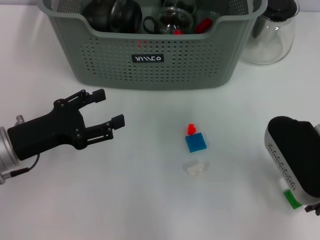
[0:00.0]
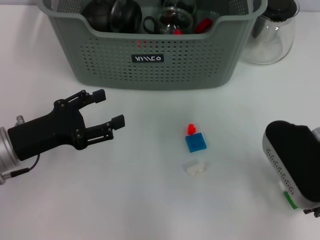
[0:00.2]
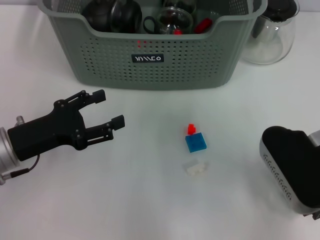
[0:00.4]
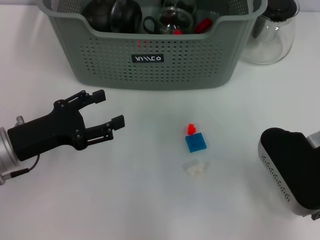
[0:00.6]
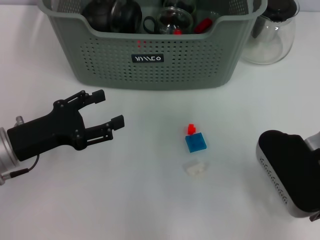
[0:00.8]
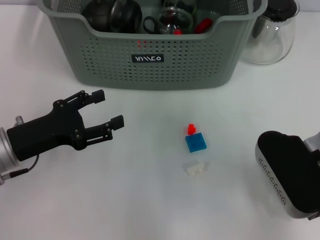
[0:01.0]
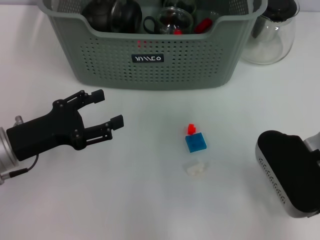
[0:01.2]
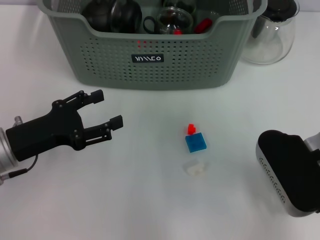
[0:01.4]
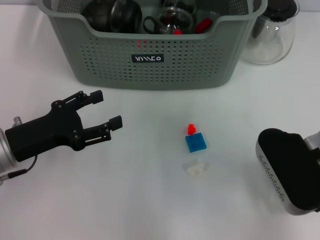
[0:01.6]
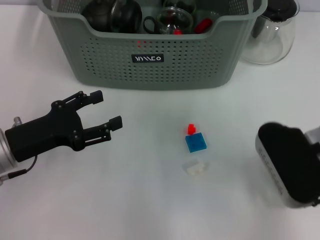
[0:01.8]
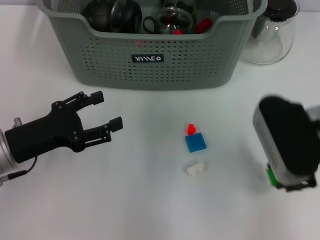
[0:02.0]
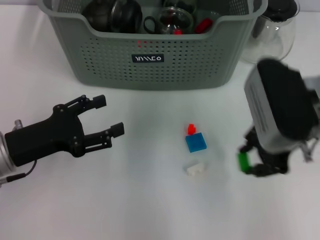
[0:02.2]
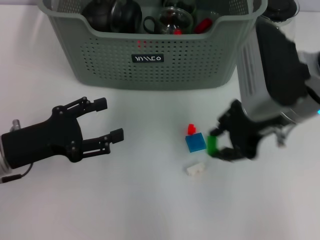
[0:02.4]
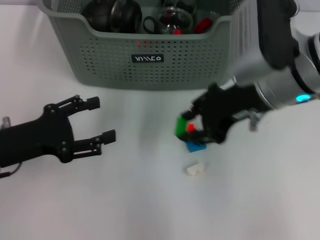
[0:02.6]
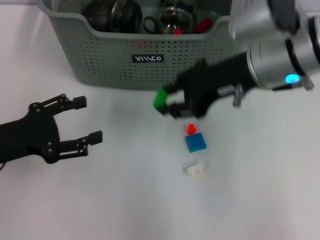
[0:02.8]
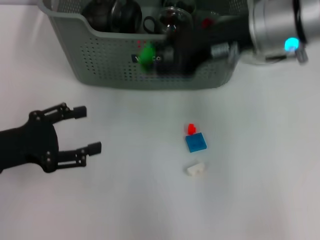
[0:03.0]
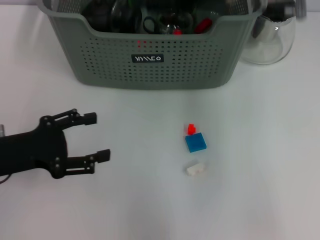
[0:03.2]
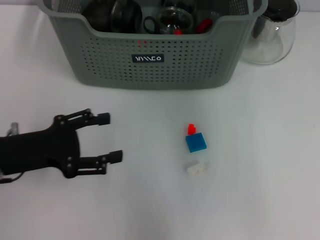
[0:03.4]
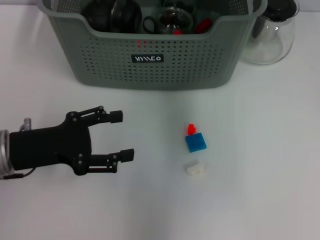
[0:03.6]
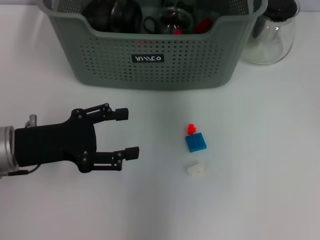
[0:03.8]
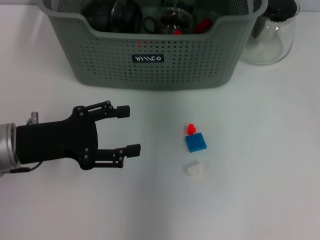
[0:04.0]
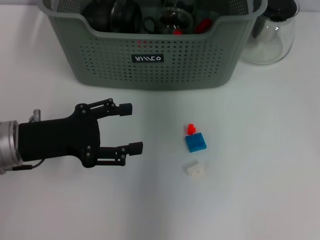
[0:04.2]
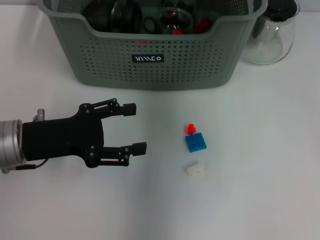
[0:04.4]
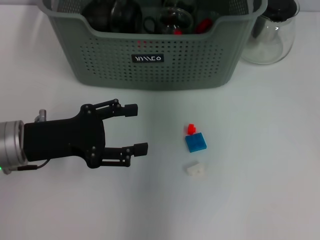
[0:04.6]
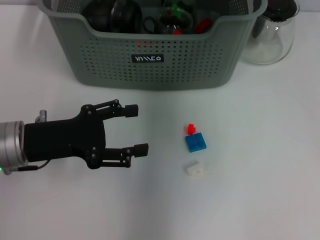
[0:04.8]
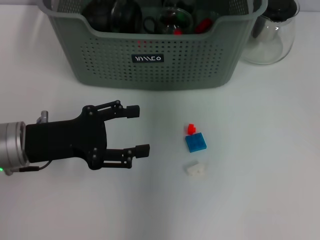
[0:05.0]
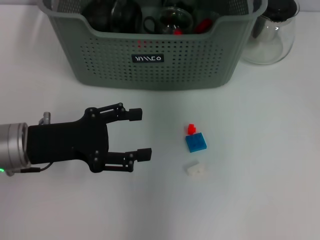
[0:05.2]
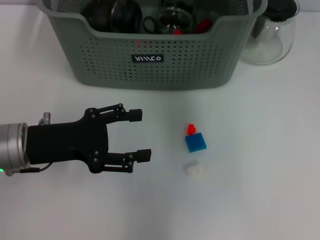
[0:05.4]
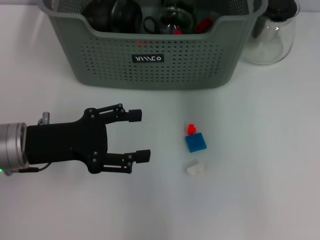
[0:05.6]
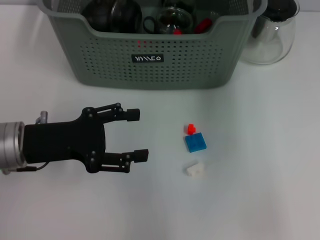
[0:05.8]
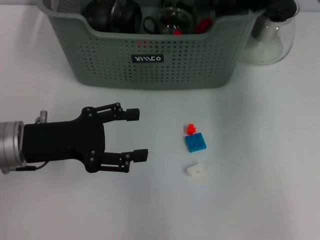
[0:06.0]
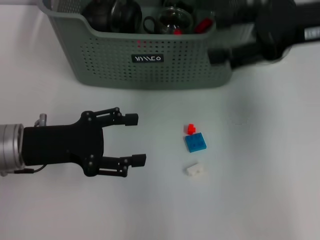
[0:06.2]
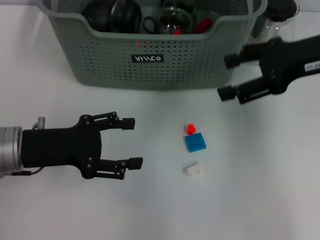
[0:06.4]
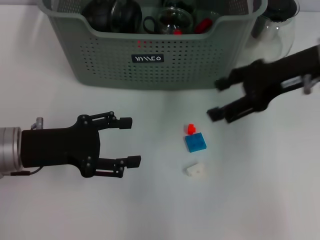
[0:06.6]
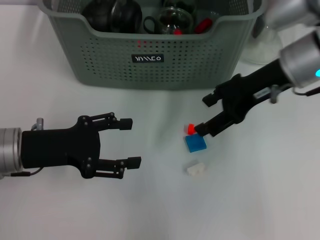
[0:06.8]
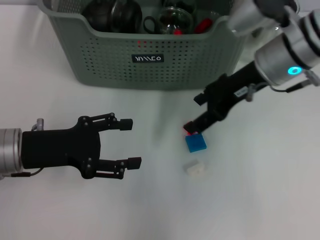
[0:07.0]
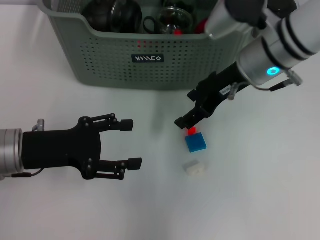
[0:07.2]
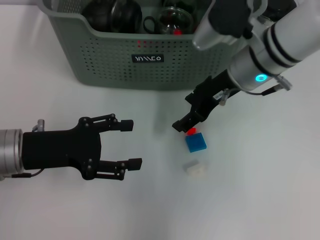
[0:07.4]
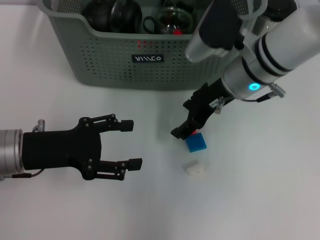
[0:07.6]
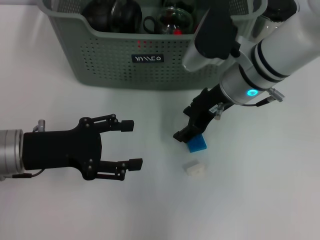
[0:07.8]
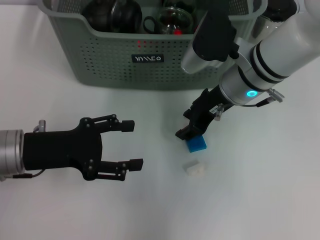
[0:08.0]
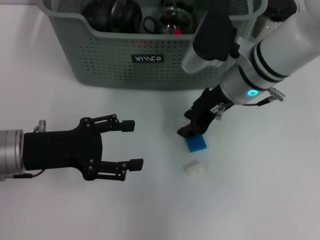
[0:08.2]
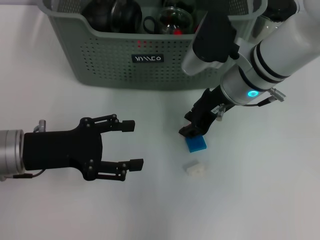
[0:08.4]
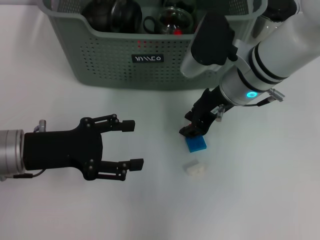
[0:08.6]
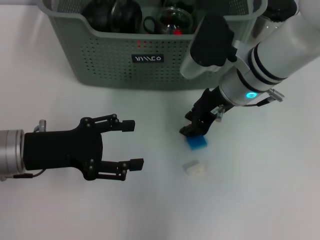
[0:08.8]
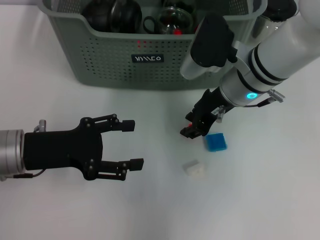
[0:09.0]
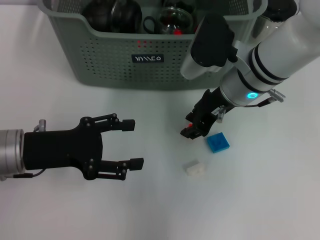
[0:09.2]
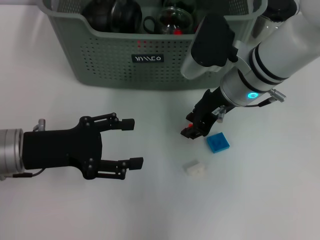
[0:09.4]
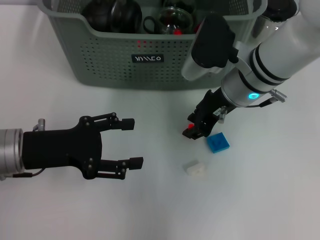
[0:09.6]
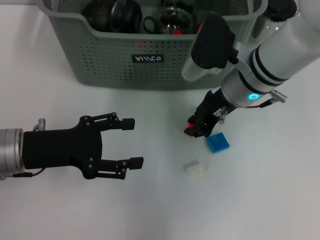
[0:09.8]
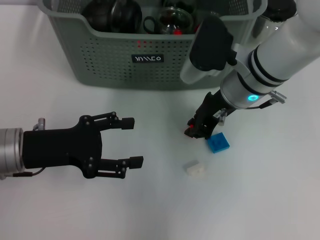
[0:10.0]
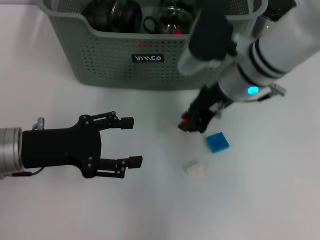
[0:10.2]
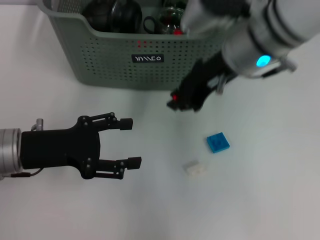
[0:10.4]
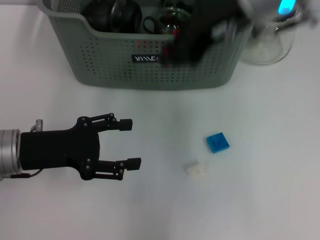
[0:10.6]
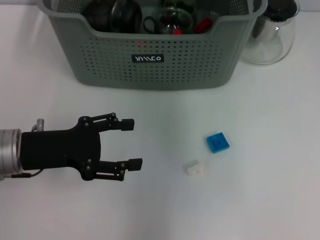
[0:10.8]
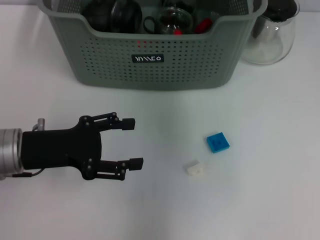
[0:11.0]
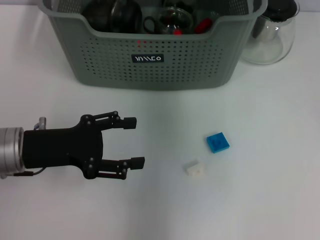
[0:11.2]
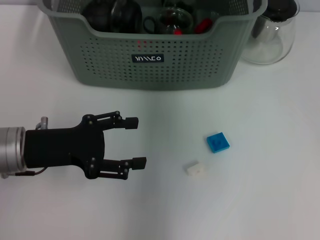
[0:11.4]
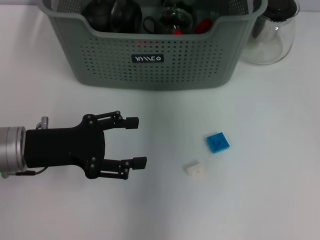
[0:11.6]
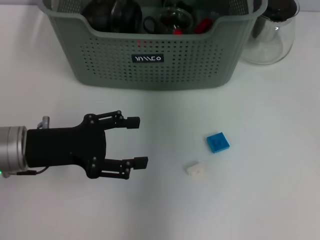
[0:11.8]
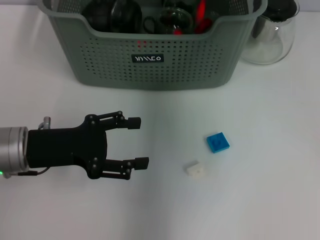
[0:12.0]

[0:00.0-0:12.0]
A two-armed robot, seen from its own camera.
Task of the whole recording: pick up the teacup on the table and place it into the storage bin, pick up the block on the table and place it into the storage bin.
Step, 0:00.0 to 0:01.4: Grasp the green block with right gripper.
Step, 0:01.6 to 0:04.8: Place the green block in the storage box with right gripper.
Step, 0:05.0 to 0:09.8: Grasp the orange block with right gripper.
Step, 0:10.0 to 0:12.0: Place the orange block in the storage box with right gripper.
0:00.0 to 0:01.6: The right gripper closes.
0:01.6 to 0:03.0: The right gripper travels upward, forward and to the left by roughly 15 cm.
0:03.0 to 0:04.4: The right gripper heads forward, covering about 15 cm. The left gripper heads to the right, covering about 5 cm.
0:04.4 to 0:06.0: The right gripper travels backward and to the right by approximately 15 cm, and opens.
0:06.0 to 0:07.6: The right gripper is displaced downward and to the left by about 15 cm.
0:07.6 to 0:09.0: The right gripper closes.
0:09.0 to 0:10.4: The right gripper travels upward by some 10 cm.
0:10.4 to 0:12.0: The right gripper goes some 10 cm forward, and travels upward and back again, some 15 cm each way.

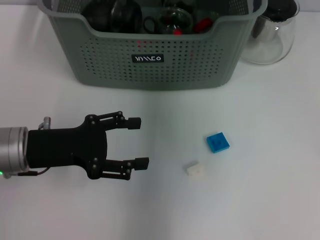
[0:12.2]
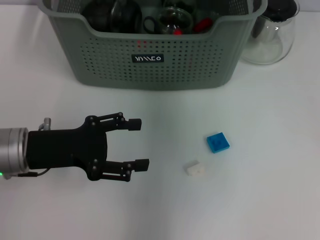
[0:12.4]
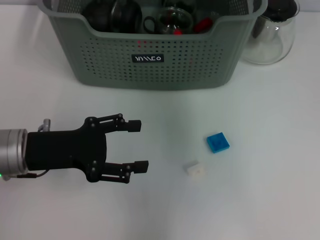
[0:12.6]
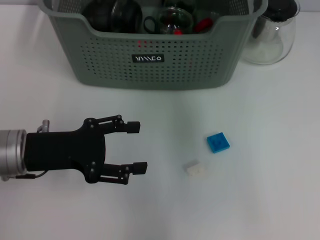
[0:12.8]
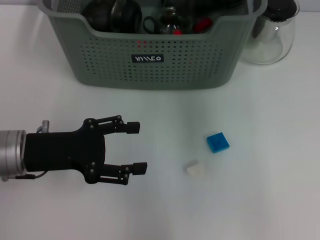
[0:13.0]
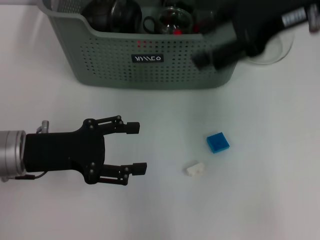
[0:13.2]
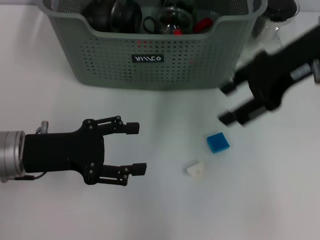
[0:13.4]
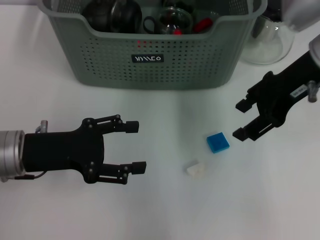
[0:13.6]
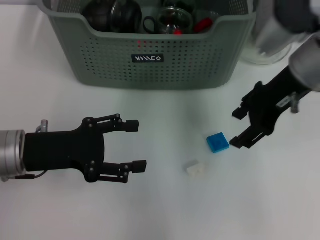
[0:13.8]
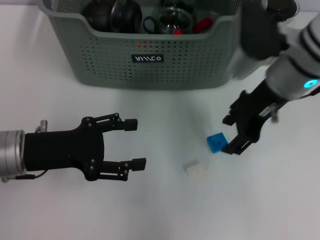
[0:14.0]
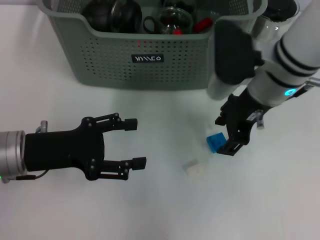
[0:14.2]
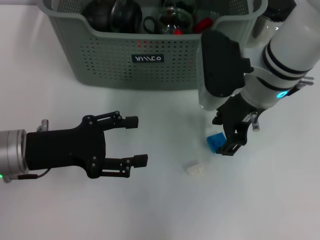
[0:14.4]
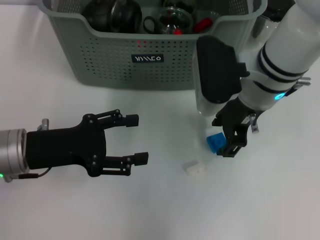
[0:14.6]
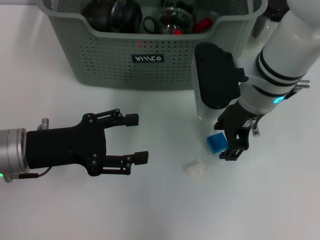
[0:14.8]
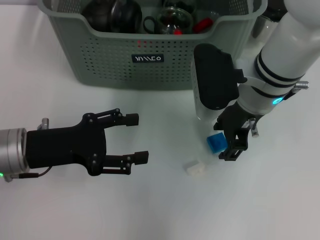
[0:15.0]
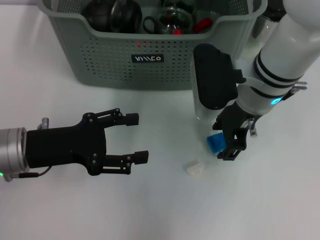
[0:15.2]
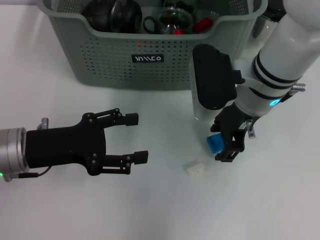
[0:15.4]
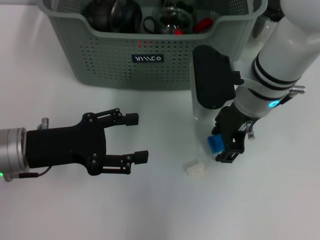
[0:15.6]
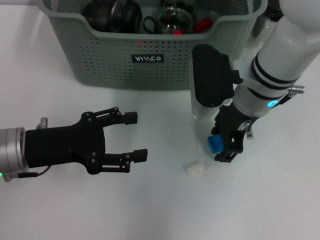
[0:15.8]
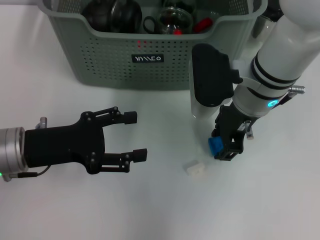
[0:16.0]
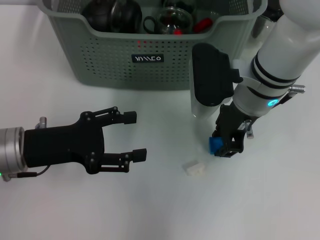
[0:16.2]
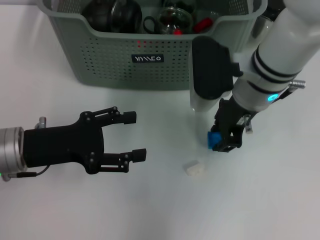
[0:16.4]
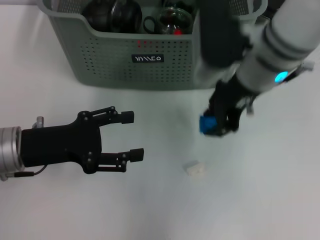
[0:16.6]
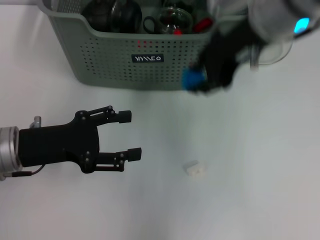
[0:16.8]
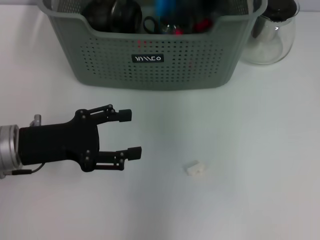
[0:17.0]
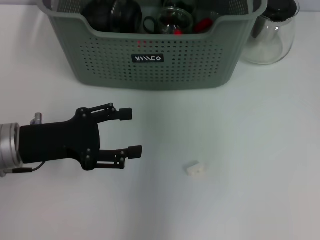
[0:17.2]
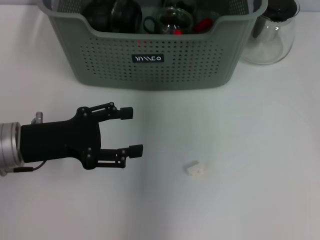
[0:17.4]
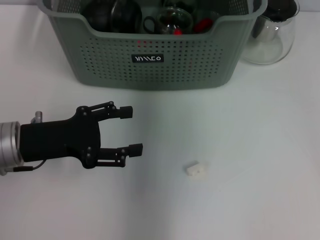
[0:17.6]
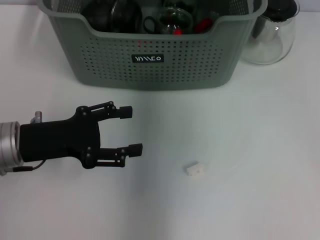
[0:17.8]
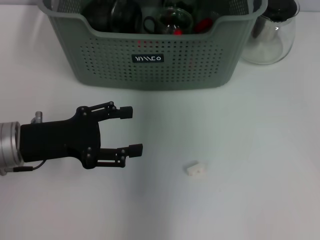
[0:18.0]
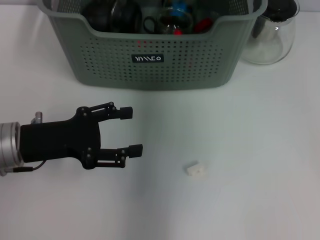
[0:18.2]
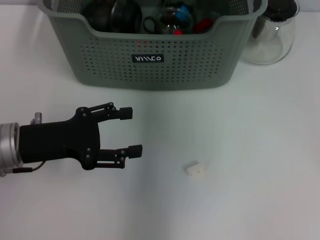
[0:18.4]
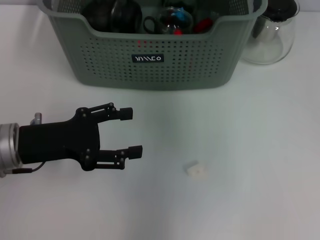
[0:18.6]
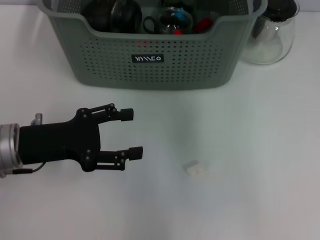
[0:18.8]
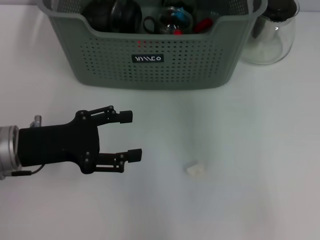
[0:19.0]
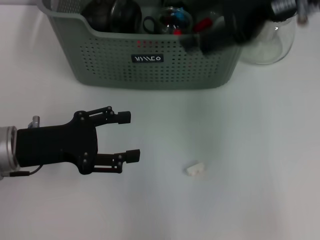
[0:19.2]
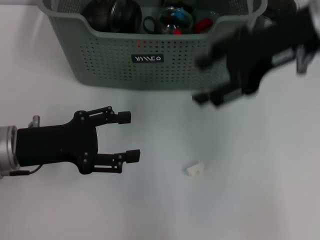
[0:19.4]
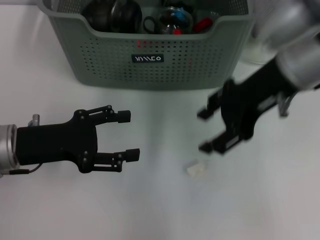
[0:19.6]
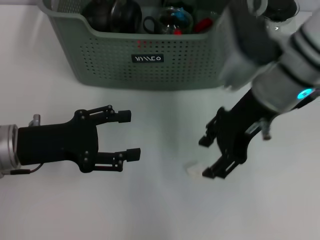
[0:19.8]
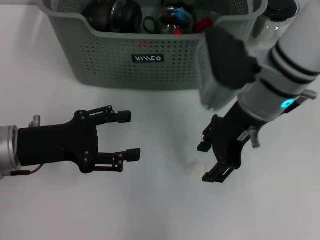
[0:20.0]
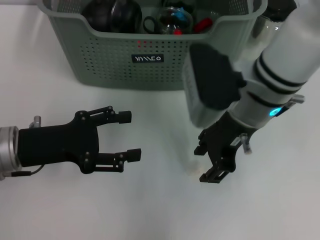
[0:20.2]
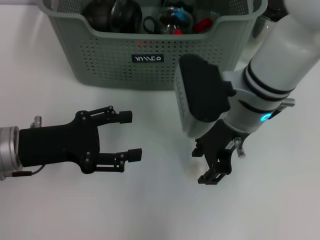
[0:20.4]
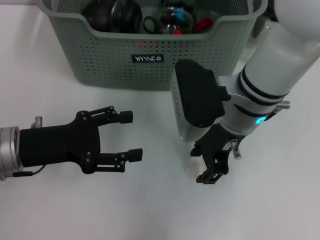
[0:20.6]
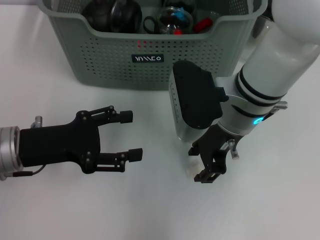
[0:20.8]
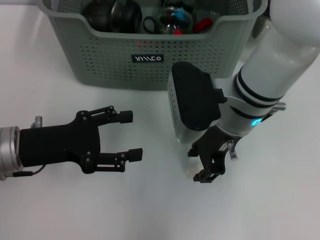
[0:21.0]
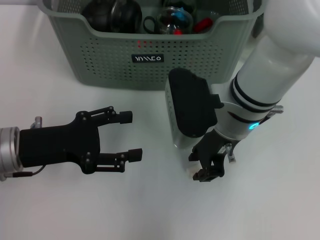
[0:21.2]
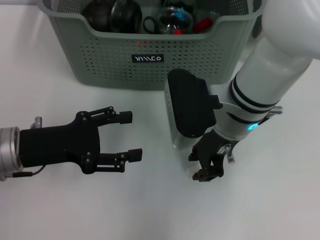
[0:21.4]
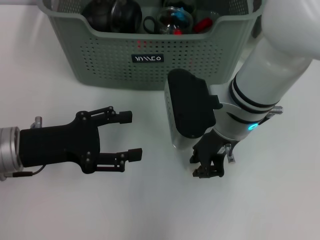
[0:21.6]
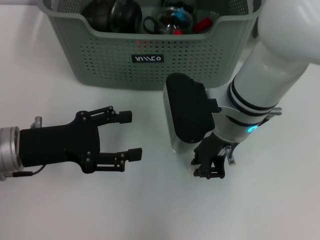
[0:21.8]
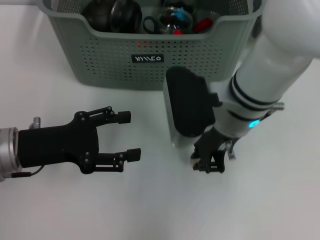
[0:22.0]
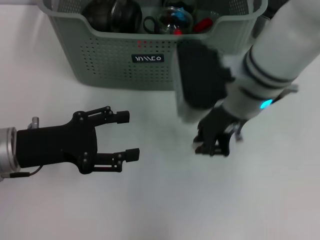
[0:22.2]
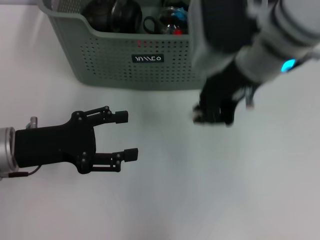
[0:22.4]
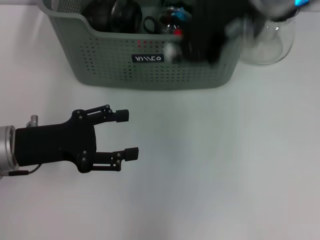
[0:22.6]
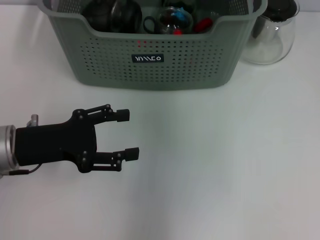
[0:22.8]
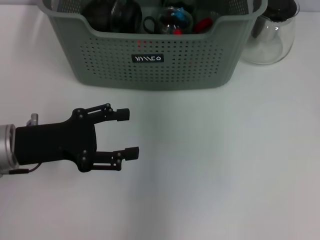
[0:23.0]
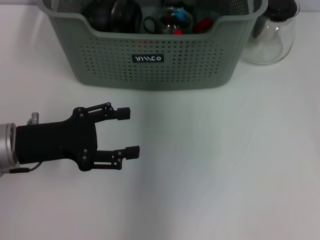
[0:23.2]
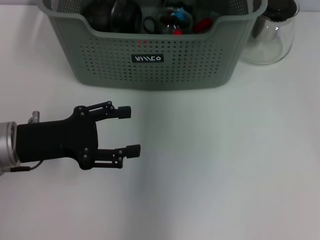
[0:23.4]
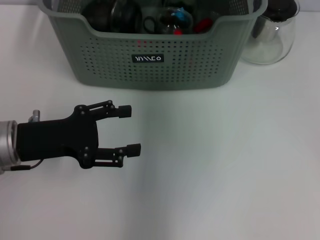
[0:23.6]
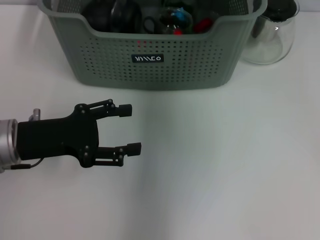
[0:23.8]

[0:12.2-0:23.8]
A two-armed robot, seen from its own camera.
Task of the whole recording: pick up the teacup on the table and place it into the storage bin, pick up the block on the table and place it into the storage bin.
Step, 0:12.2 to 0:16.2: Grasp the dark blue block with right gripper.
Step, 0:16.4 to 0:18.2: Place the dark blue block in the storage box with right gripper.
Step, 0:18.6 to 0:21.8: Grasp the white block with right gripper.
0:12.2 to 0:13.6: The right gripper heads backward and to the right, covering about 15 cm, and opens up.
0:13.6 to 0:15.0: The right gripper moves to the left and downward, roughly 10 cm.
0:15.0 to 0:16.6: The right gripper closes its fingers.
0:16.6 to 0:18.0: The right gripper moves forward and upward, about 15 cm.
0:18.0 to 0:19.4: The right gripper heads backward and to the right, covering approximately 15 cm, and opens its fingers.
0:19.4 to 0:21.0: The right gripper travels downward and to the left by some 15 cm.
0:21.0 to 0:22.4: The right gripper is displaced upward by roughly 10 cm, and closes.
0:22.4 to 0:23.8: The right gripper moves forward, about 15 cm.
